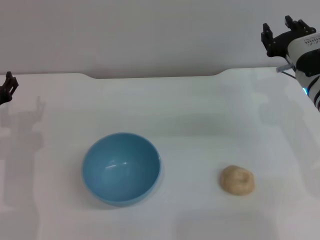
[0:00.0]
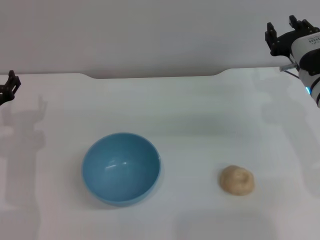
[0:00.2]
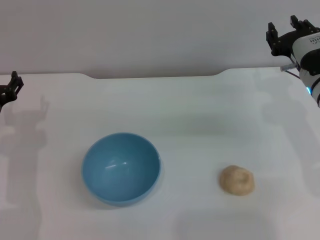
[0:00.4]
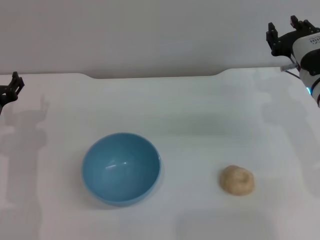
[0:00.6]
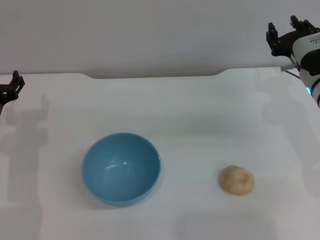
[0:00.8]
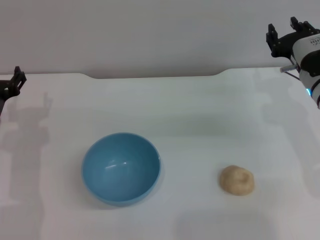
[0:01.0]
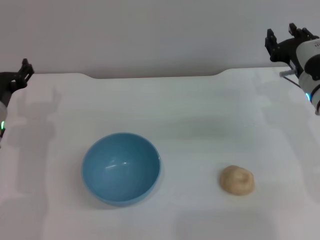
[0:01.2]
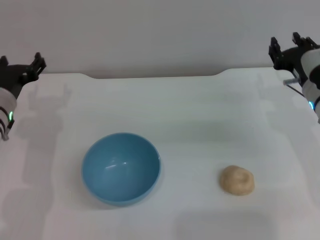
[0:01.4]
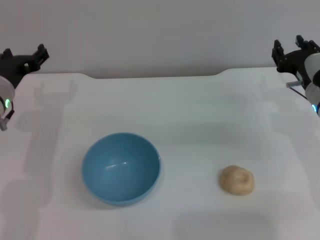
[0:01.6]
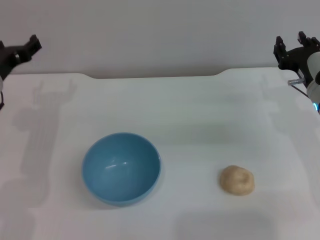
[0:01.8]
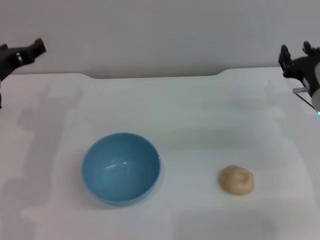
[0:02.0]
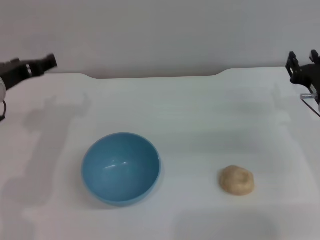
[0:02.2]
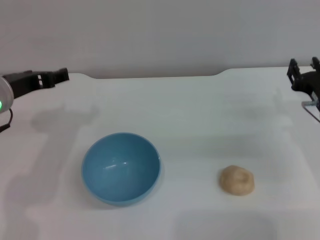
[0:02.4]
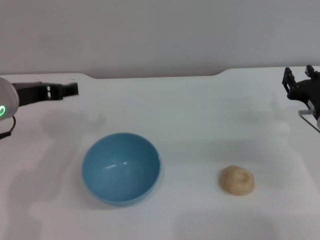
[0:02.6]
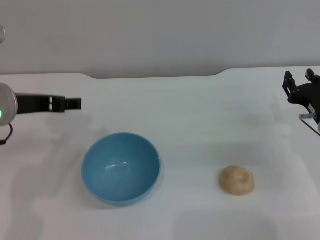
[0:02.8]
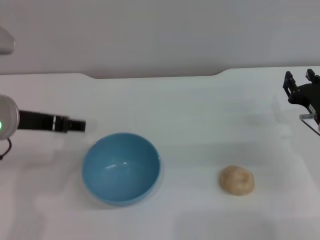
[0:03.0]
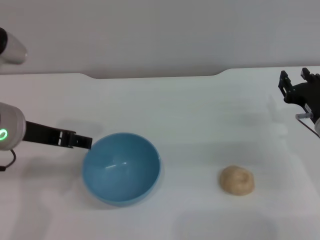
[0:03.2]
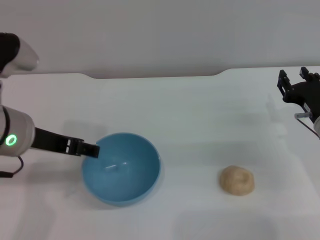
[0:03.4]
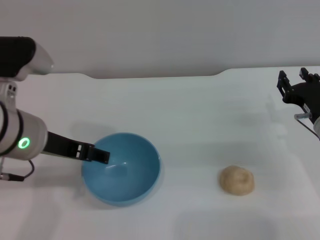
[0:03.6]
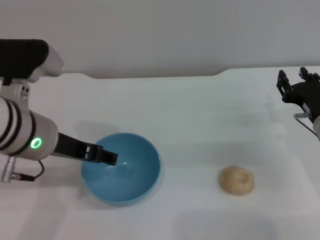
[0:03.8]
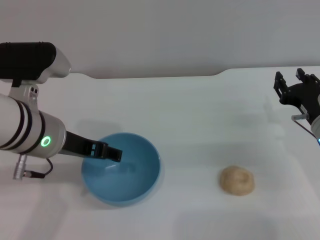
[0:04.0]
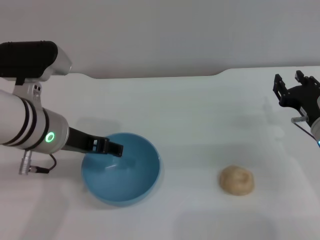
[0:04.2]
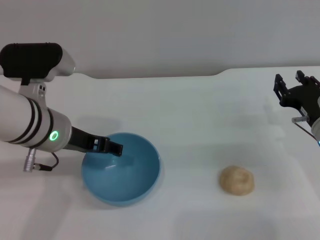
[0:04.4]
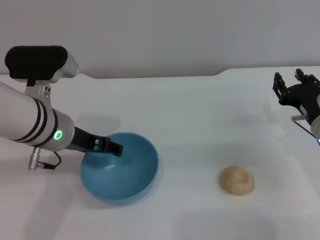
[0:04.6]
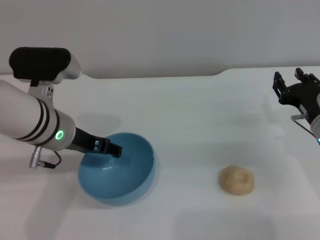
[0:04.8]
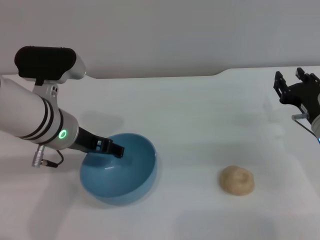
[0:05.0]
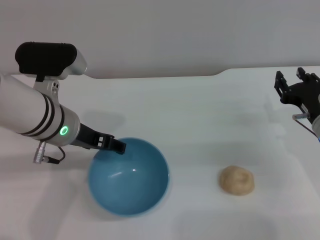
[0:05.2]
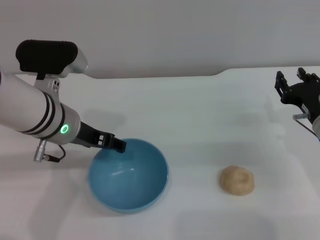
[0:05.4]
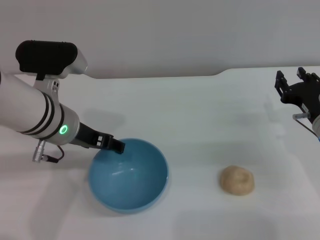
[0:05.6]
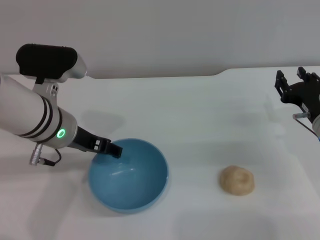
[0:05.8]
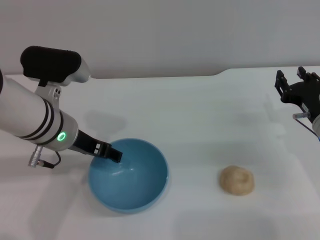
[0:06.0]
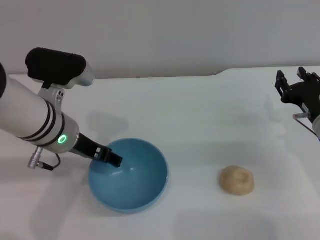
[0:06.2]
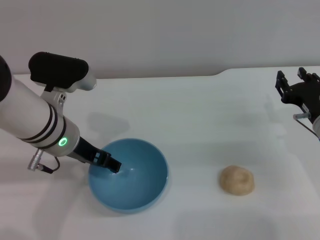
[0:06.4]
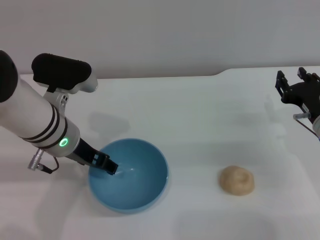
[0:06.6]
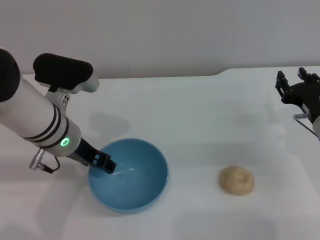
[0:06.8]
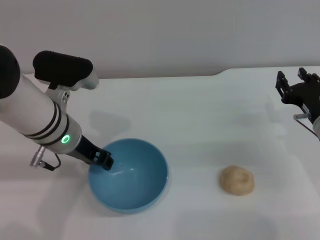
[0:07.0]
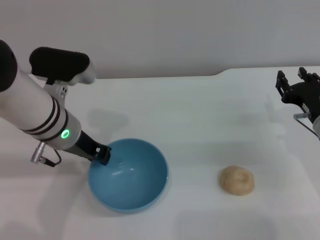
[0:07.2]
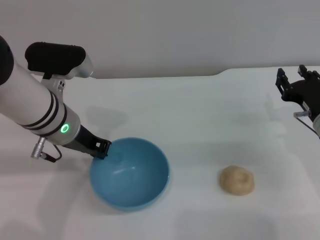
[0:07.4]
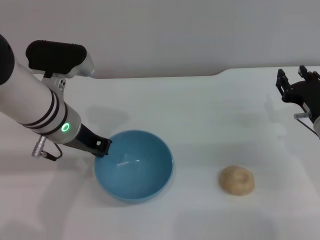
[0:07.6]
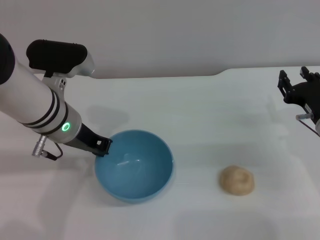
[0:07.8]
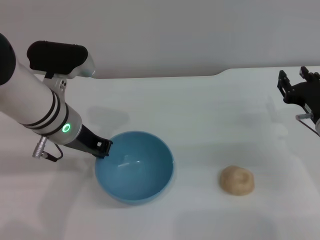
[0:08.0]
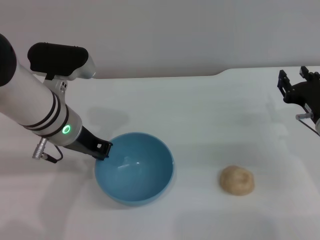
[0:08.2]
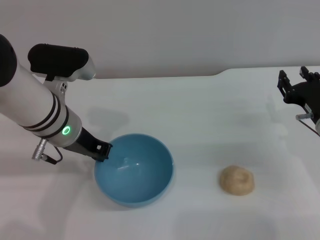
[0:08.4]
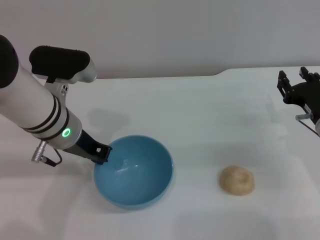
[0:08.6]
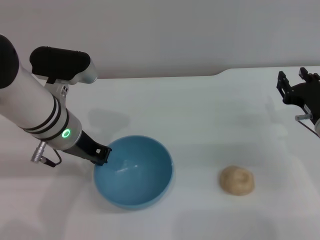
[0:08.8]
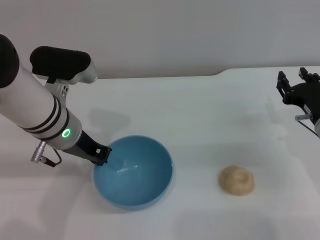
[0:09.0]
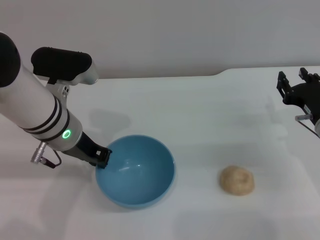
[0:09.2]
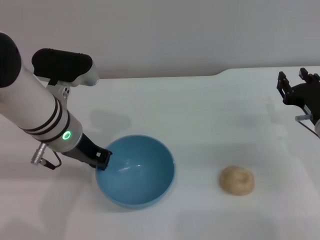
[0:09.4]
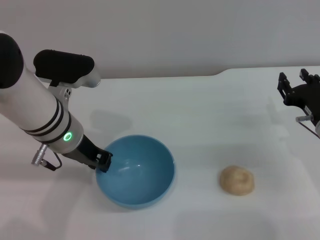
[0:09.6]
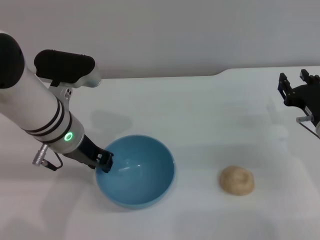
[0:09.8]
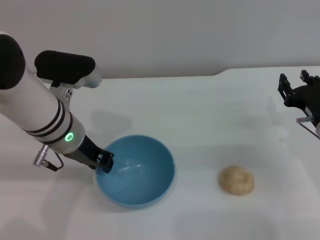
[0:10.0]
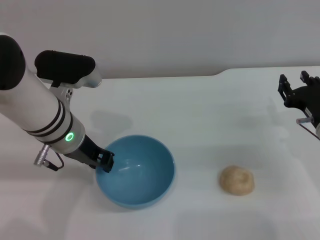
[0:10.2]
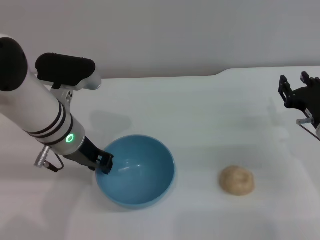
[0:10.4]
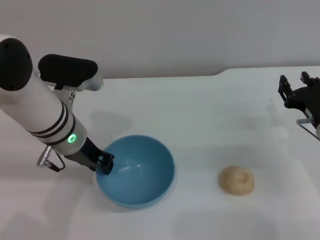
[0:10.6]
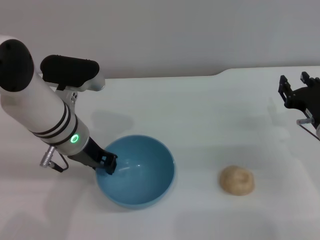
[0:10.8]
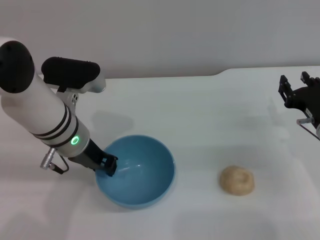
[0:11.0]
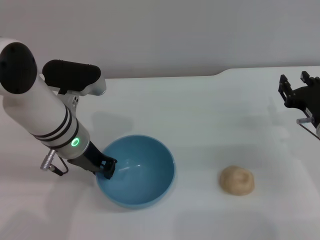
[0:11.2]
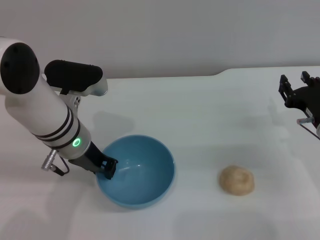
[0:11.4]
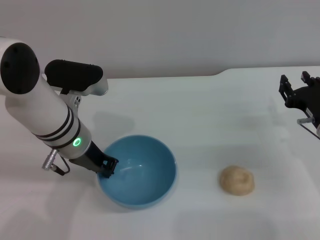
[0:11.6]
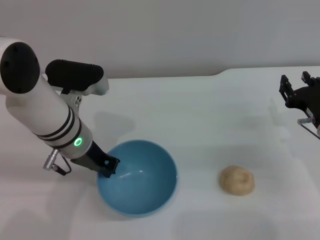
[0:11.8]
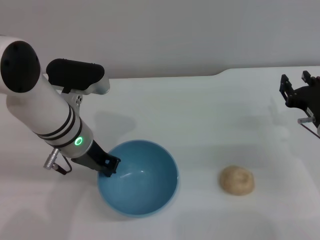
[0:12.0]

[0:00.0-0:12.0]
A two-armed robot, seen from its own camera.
Task of the whole recording: put the egg yolk pastry into the blue bowl and pour it out repeatedly.
0:00.0 to 0:01.6: The left gripper shifts roughly 5 cm upward.
0:01.6 to 0:03.0: The left gripper shifts approximately 15 cm upward and backward. The right gripper ends up approximately 5 cm from where it was.
0:03.0 to 0:04.4: The left gripper shifts roughly 5 cm to the right.
0:04.4 to 0:06.0: There are only small adjustments of the grippers.
0:06.0 to 0:07.6: The left gripper closes.
0:07.6 to 0:09.0: Both grippers stay put.
0:09.0 to 0:10.4: Both grippers stay about where they are.
0:10.4 to 0:12.0: Both grippers stay about where they are.

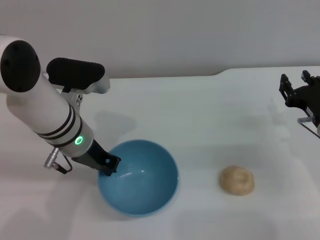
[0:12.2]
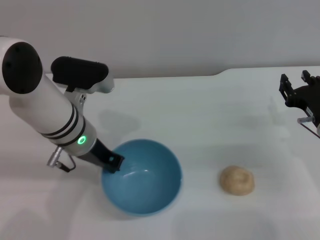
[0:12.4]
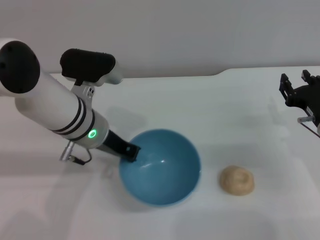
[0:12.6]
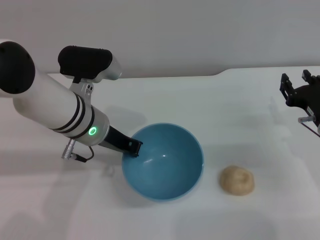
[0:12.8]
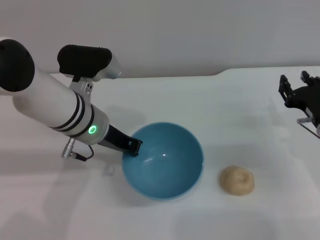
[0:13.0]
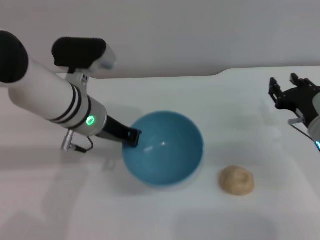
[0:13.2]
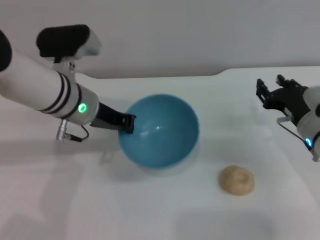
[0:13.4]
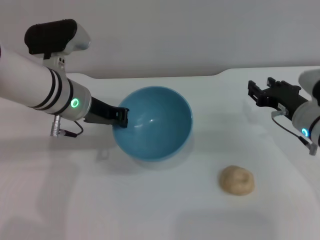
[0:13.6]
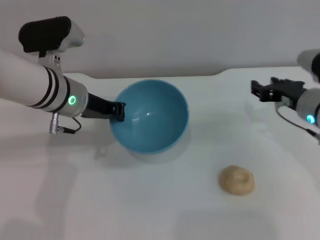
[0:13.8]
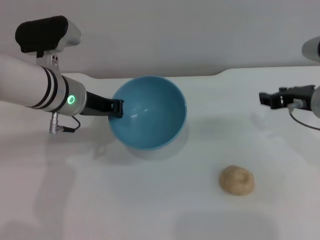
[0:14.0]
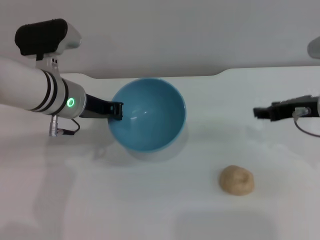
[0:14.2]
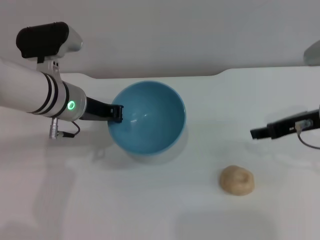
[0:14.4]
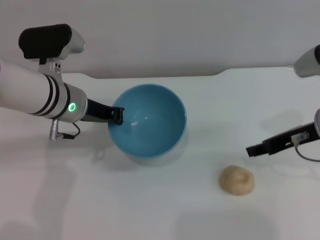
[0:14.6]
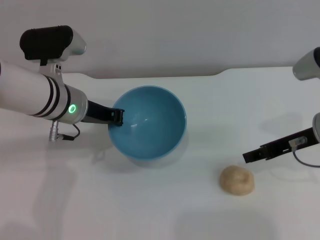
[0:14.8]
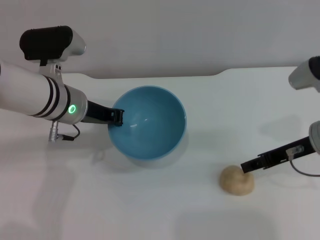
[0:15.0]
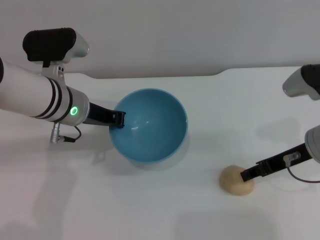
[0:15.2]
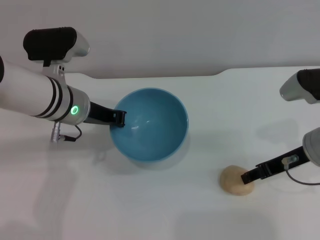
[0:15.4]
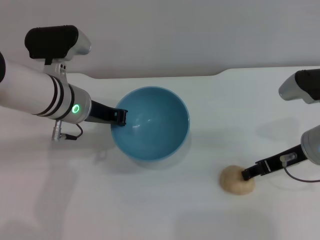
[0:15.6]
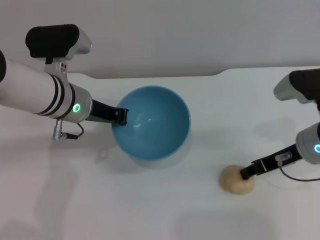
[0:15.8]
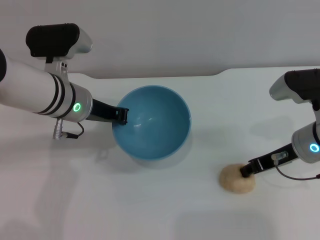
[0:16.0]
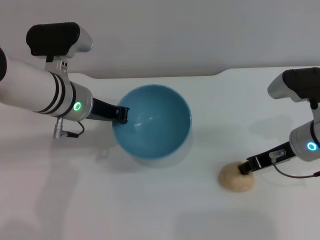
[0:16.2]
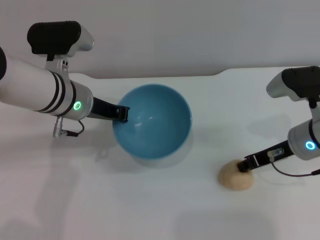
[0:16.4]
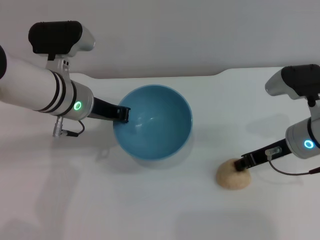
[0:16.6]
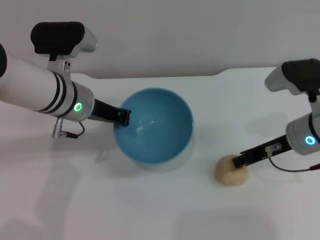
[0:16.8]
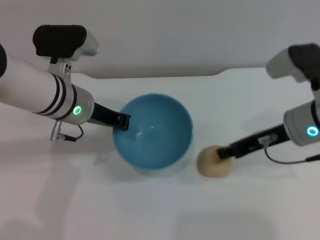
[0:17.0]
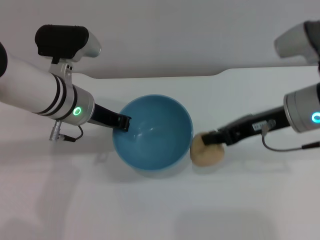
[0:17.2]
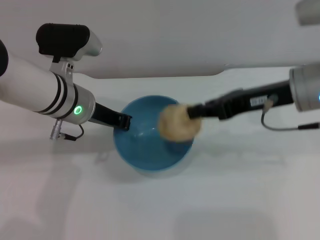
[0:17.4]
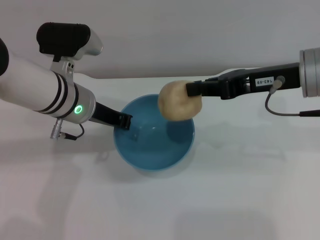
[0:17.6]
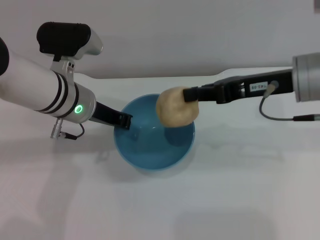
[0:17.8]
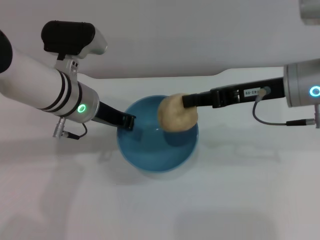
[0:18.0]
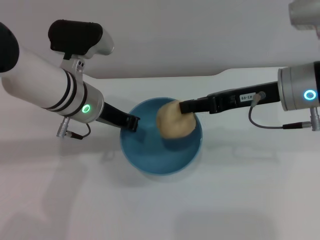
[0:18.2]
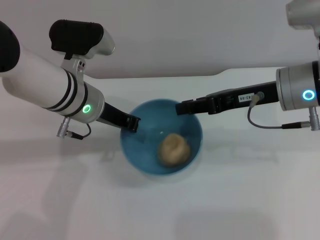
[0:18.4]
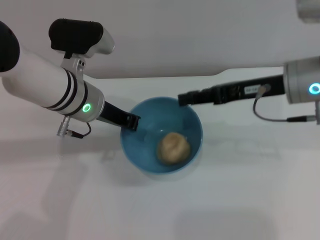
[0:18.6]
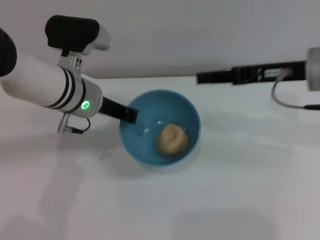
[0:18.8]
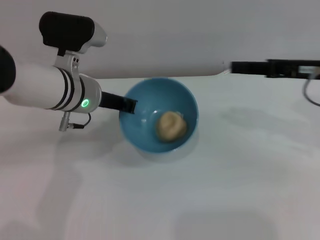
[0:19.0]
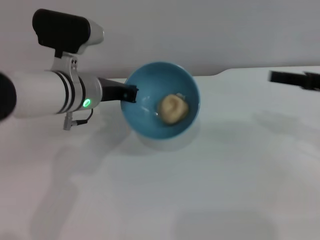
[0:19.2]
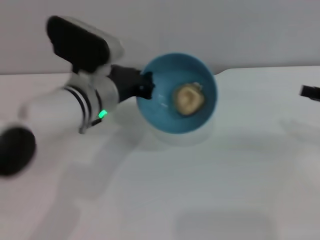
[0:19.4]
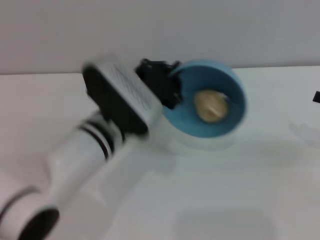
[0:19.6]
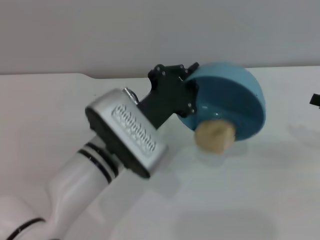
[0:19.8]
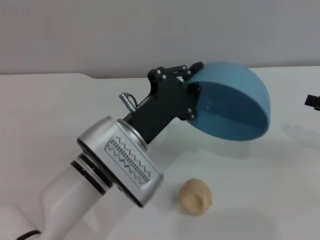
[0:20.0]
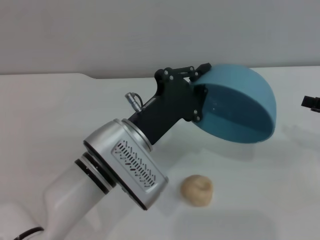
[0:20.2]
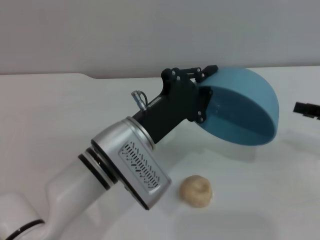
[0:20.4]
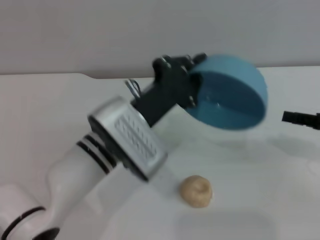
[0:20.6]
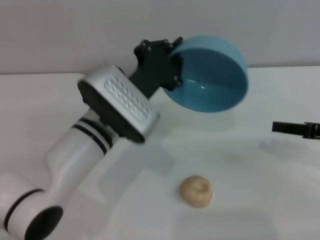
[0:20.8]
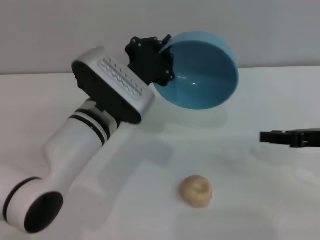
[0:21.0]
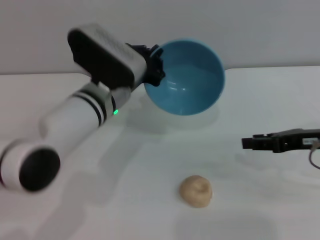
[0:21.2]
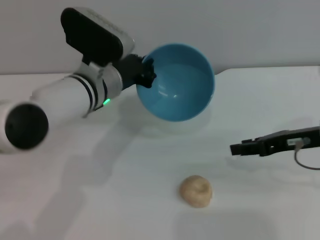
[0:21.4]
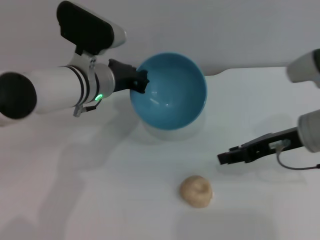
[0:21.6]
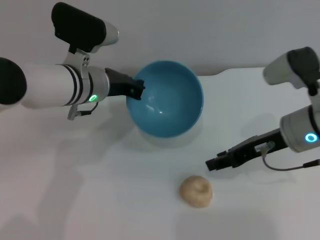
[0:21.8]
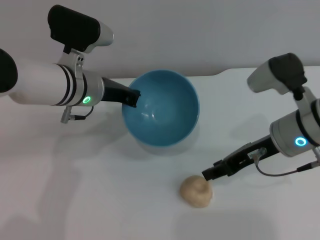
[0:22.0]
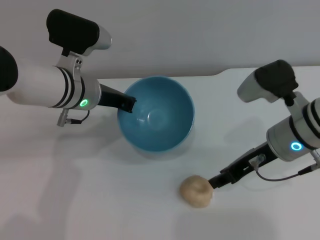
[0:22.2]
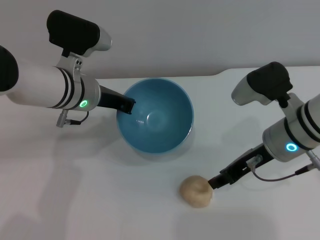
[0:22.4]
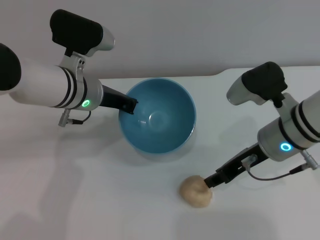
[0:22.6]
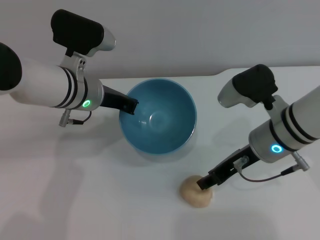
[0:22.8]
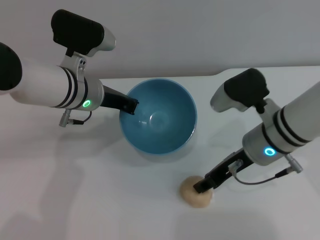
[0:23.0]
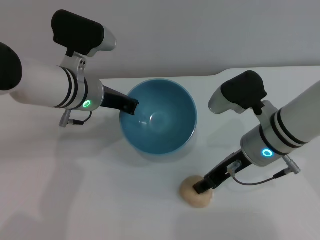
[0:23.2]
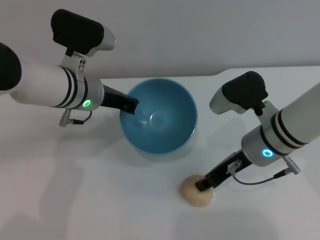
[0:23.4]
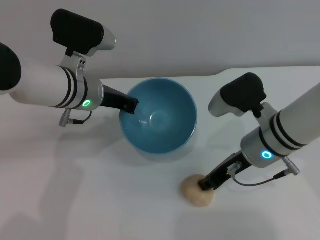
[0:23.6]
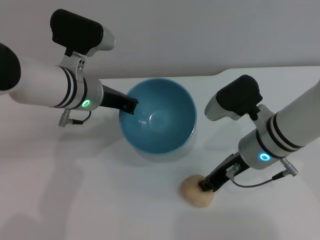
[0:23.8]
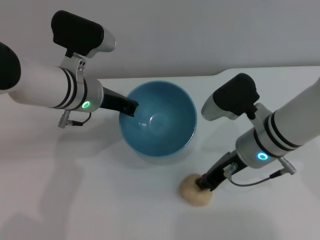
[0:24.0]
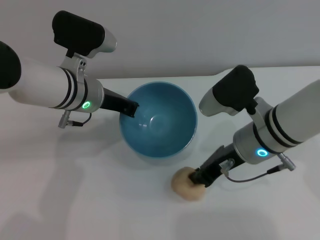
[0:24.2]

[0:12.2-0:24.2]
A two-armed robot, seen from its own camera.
Task of the whole recording: put the egg yolk pastry into the blue bowl and pour it out repeatedly.
Step, 0:13.4 to 0:17.0: Pick up the egg yolk pastry with the right gripper.
Step, 0:17.2 to 0:18.8: Place the egg yolk pastry into the bowl.
Step, 0:19.0 to 0:20.2: Pour the egg yolk pastry out of bowl.
0:12.2 to 0:13.8: The right gripper travels upward by some 5 cm.
0:15.2 to 0:16.6: The right gripper closes its fingers.
0:16.6 to 0:18.2: The right gripper goes some 10 cm upward.
0:18.2 to 0:19.8: The right gripper goes roughly 20 cm to the right and backward, and opens. Meanwhile the left gripper shifts roughly 10 cm backward and to the right.
0:19.8 to 0:21.2: The left gripper goes about 5 cm forward. Meanwhile the right gripper travels to the left by roughly 10 cm.
0:21.2 to 0:22.6: The right gripper moves to the left, approximately 10 cm. Meanwhile the left gripper changes place by roughly 5 cm.
0:22.6 to 0:24.2: The right gripper closes.
